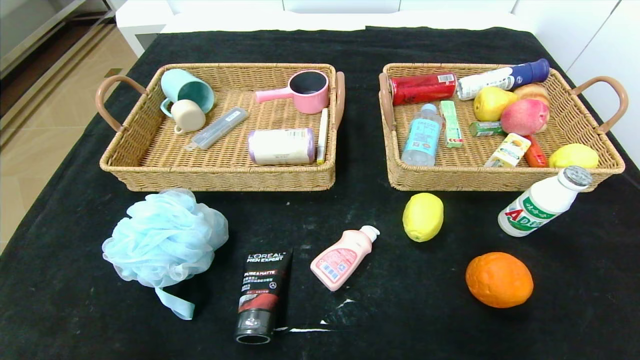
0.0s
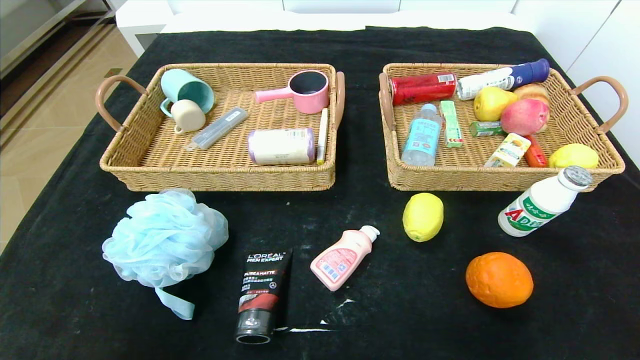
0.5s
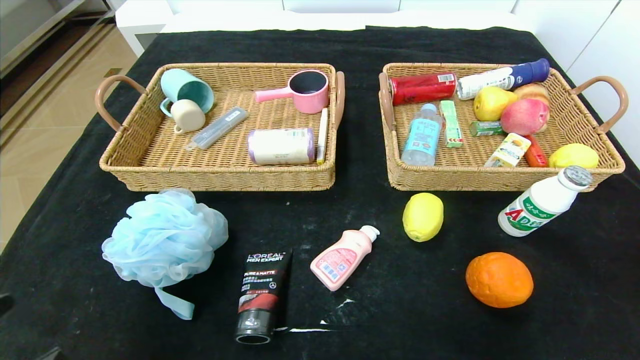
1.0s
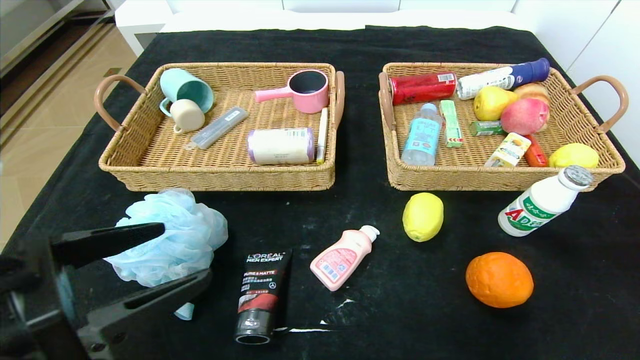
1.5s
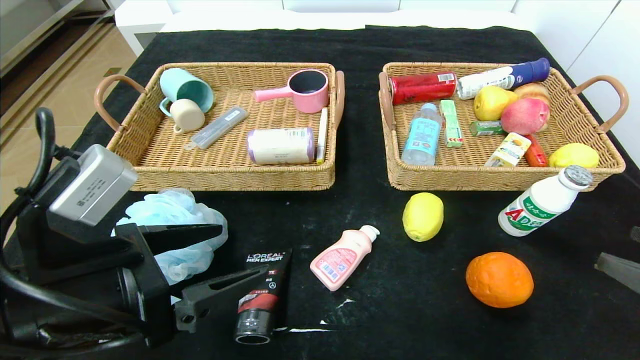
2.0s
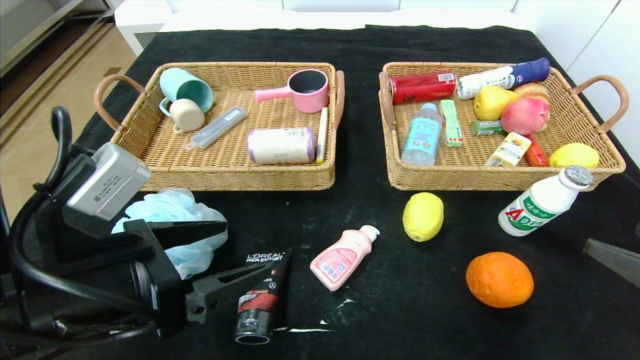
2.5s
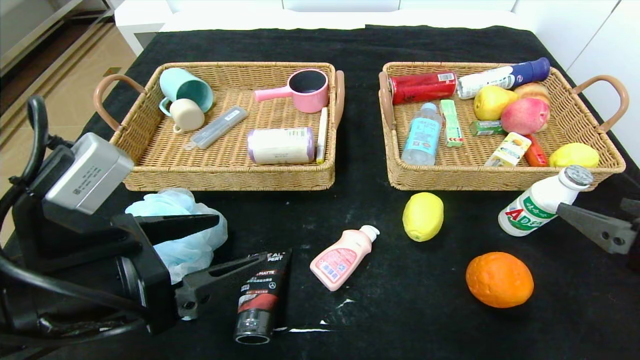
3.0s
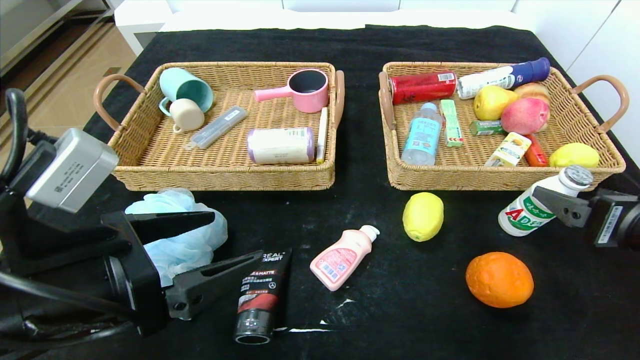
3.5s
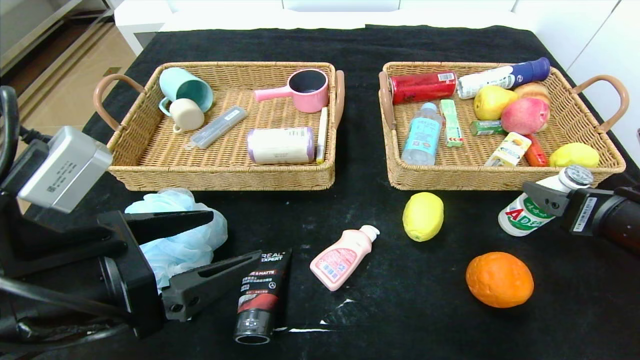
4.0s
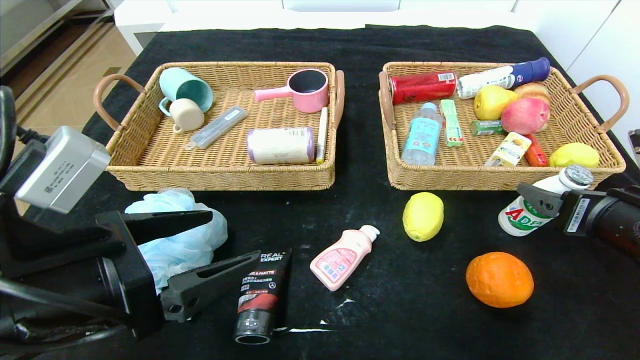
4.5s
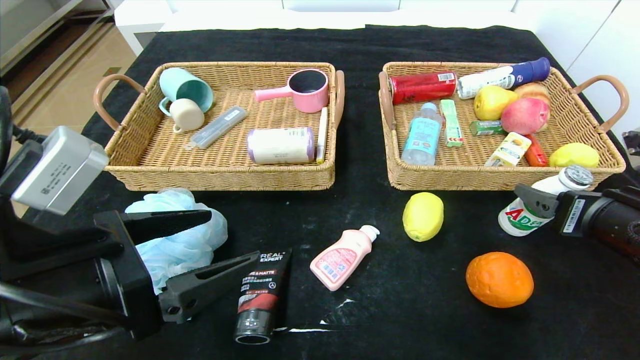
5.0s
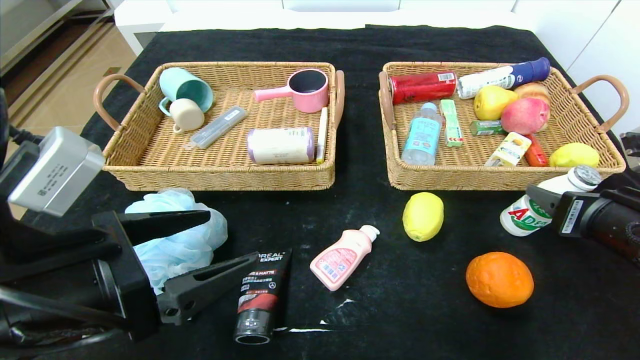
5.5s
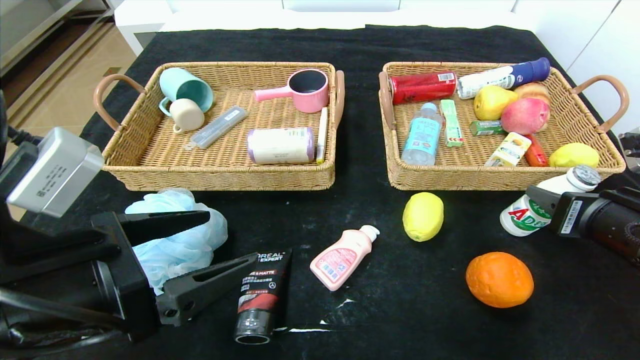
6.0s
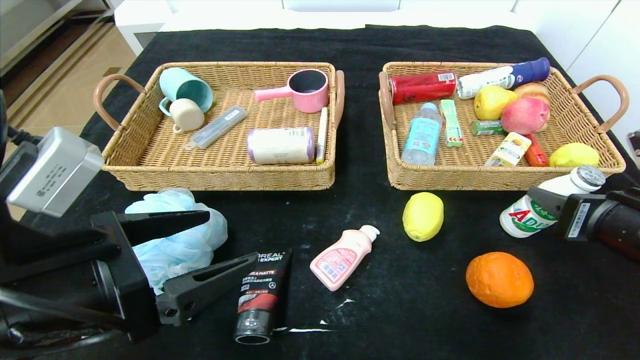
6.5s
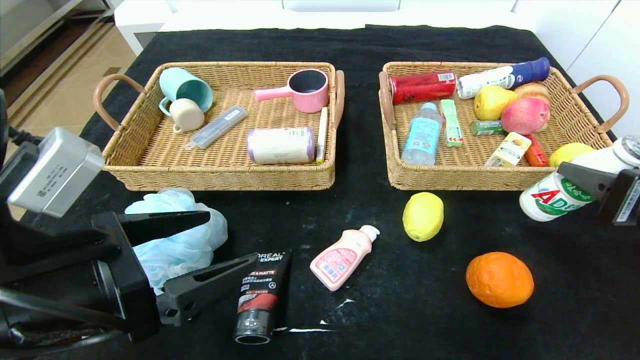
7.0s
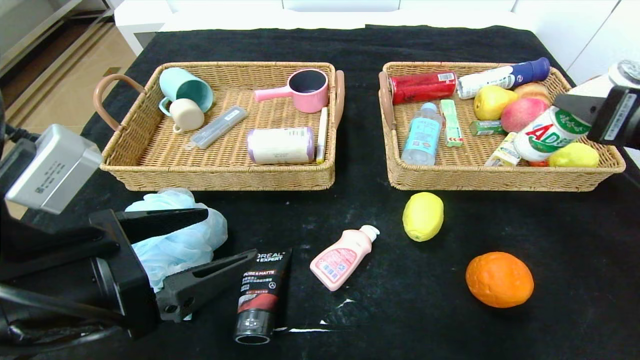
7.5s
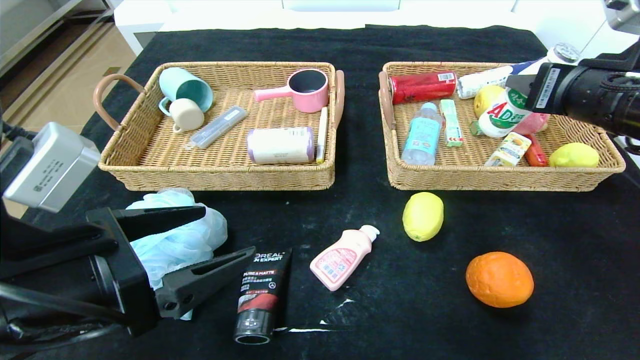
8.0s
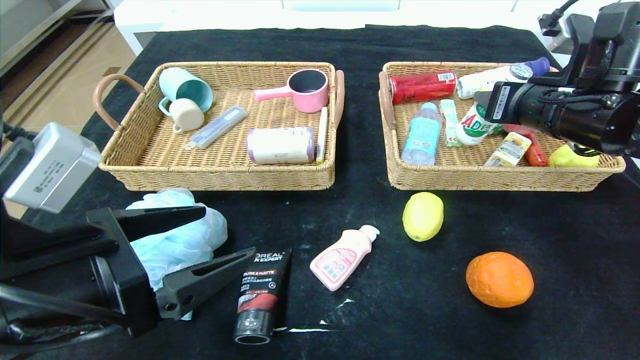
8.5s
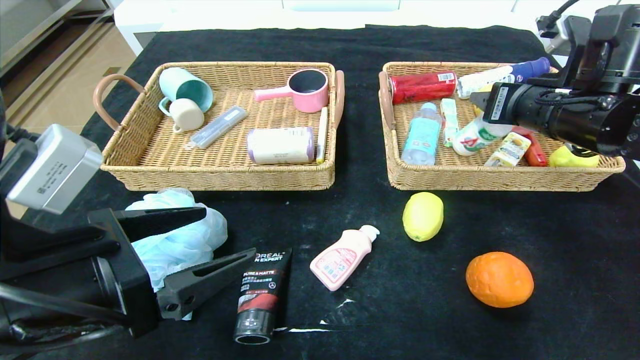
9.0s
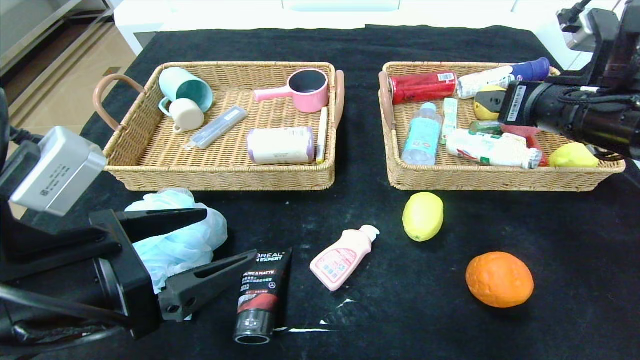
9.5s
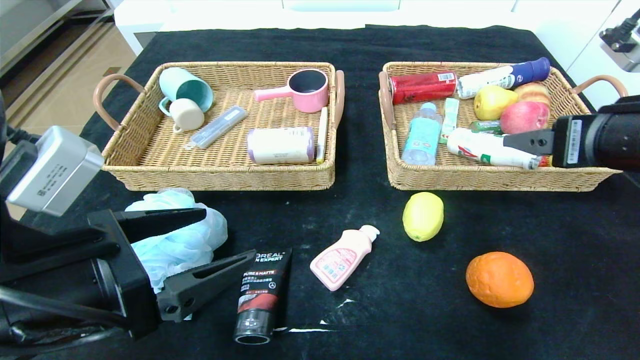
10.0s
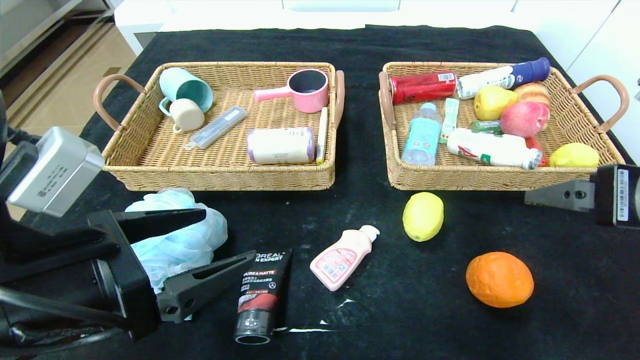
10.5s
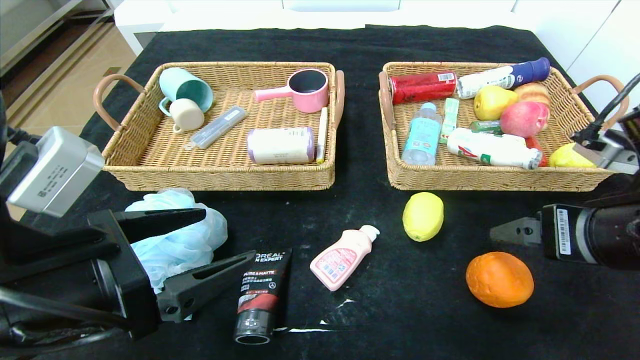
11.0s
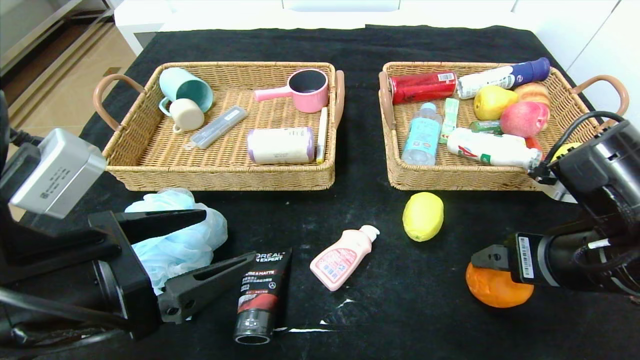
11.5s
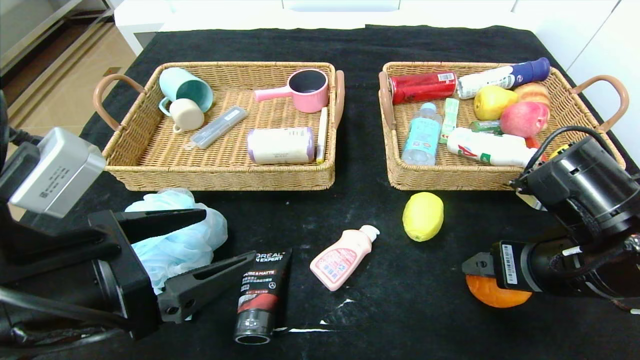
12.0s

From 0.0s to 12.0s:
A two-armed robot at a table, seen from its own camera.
Step, from 0.0s to 10.5s: Pick up the ad milk and put it in the right basket.
From 0.0s to 2.0s: The left gripper is displaced forward, upward and to the right by approximately 25 cm. The right gripper moves upward and forward, roughly 20 cm.
From 2.0s to 4.0s: The right gripper heads forward, covering about 10 cm.
From 4.0s to 6.0s: The right gripper closes its fingers.
From 6.0s to 8.0s: The right gripper moves upward and forward, approximately 15 cm.
From 8.0s to 10.0s: The right gripper travels backward by approximately 5 cm, and opens its fingers.
From 10.0s to 12.0s: The right gripper shifts approximately 10 cm downward.

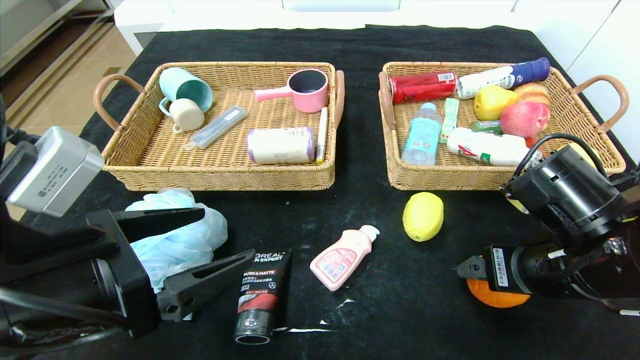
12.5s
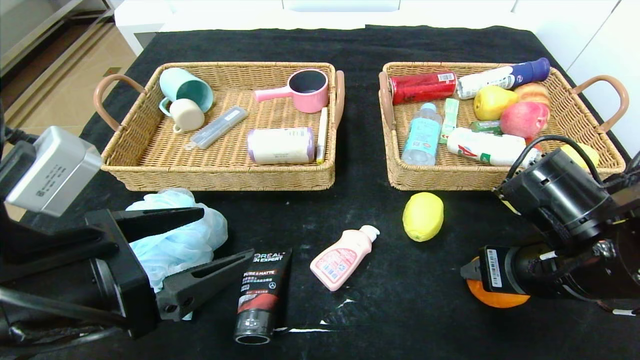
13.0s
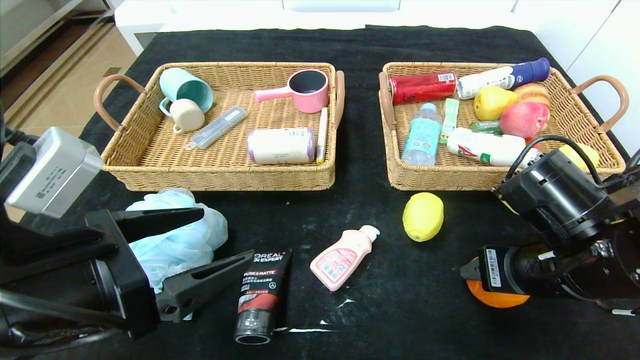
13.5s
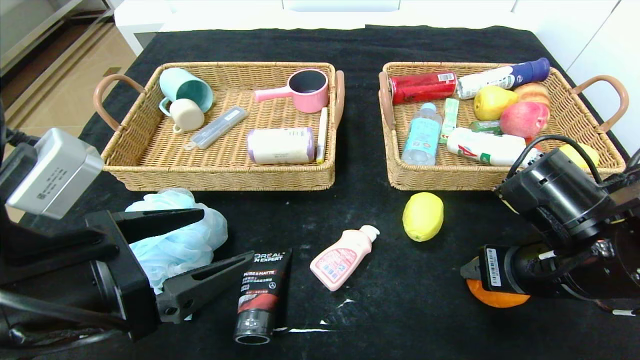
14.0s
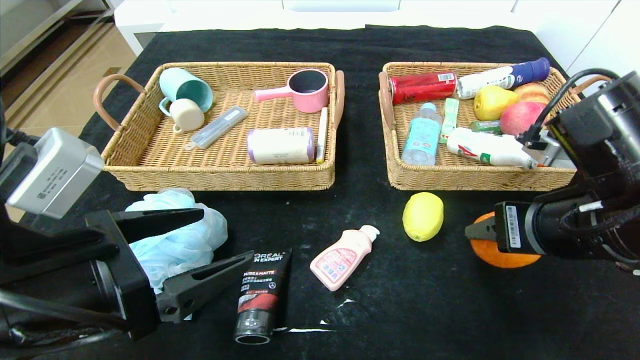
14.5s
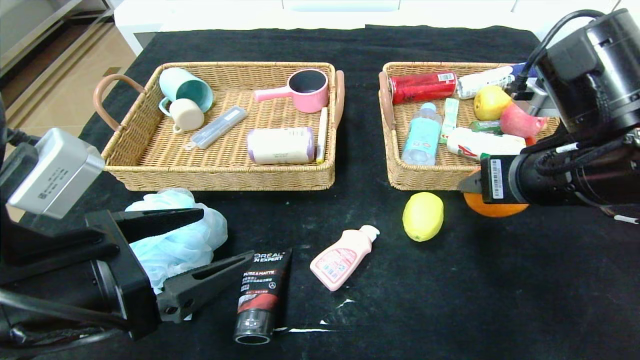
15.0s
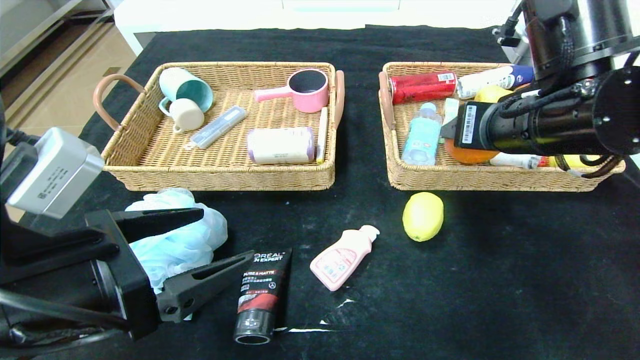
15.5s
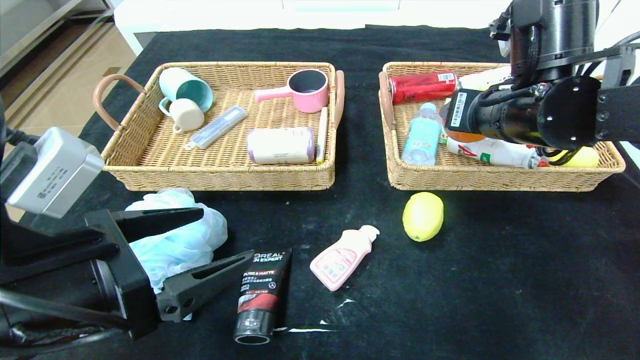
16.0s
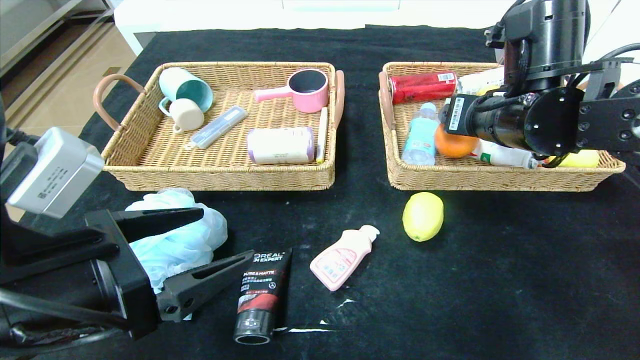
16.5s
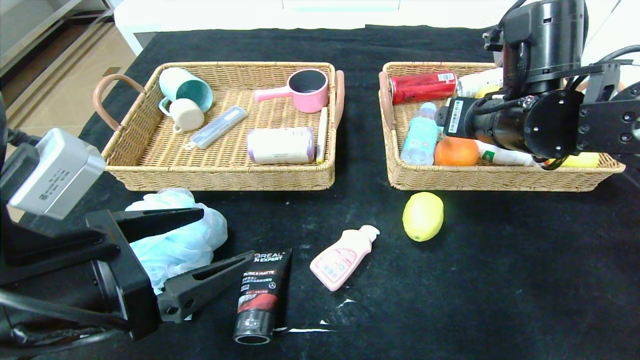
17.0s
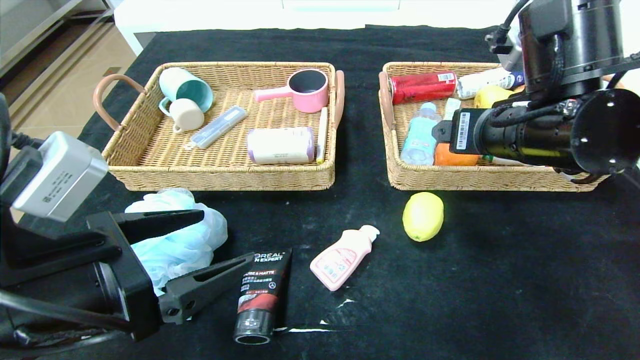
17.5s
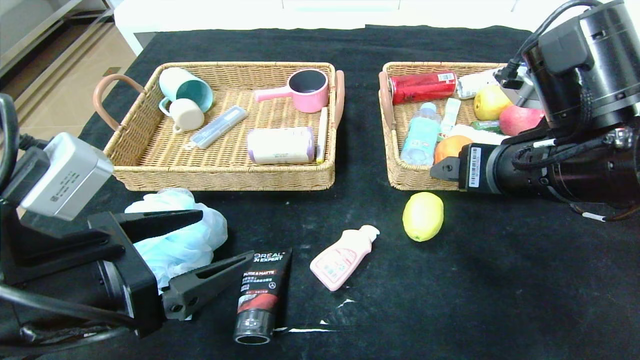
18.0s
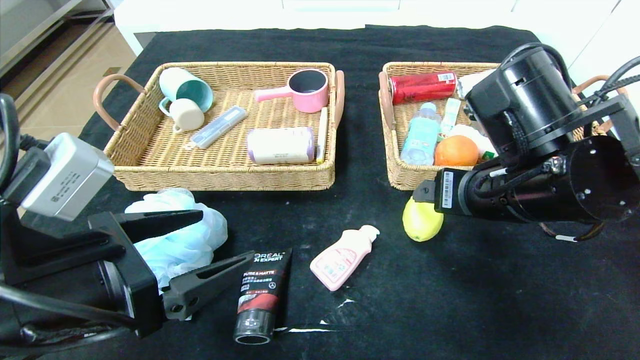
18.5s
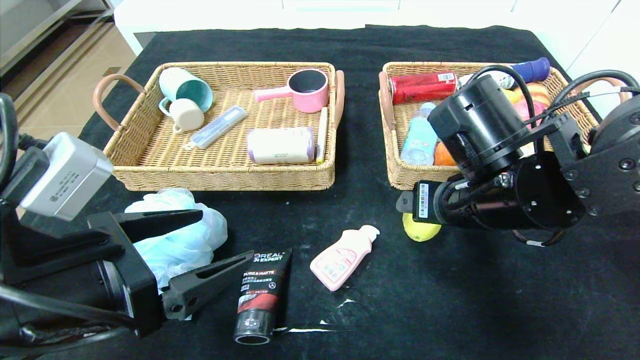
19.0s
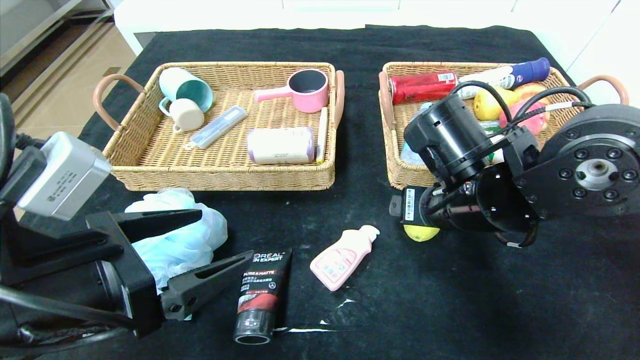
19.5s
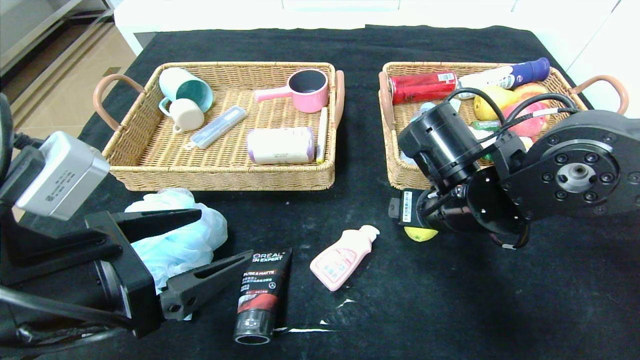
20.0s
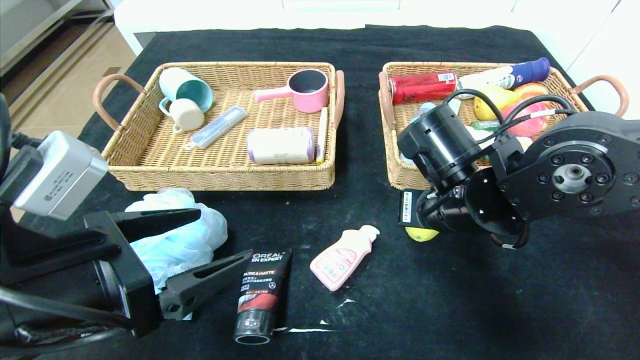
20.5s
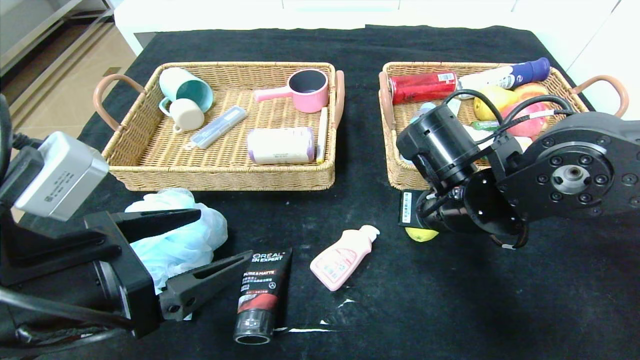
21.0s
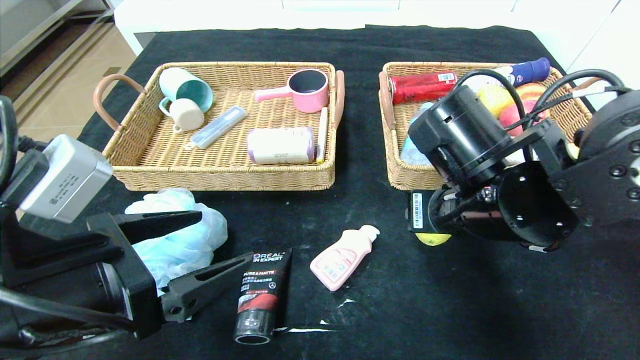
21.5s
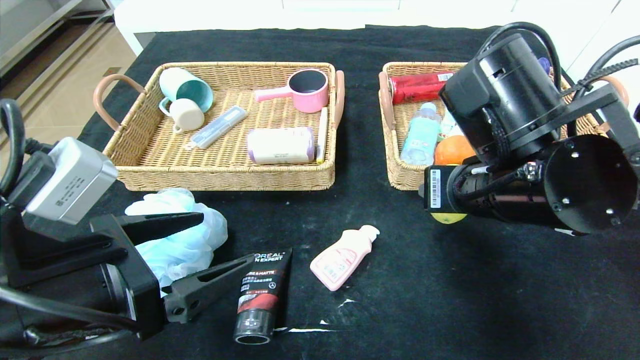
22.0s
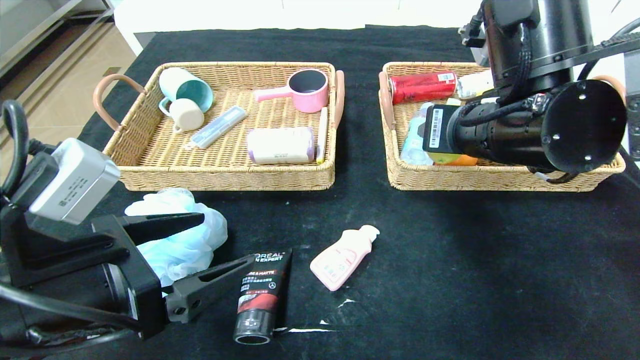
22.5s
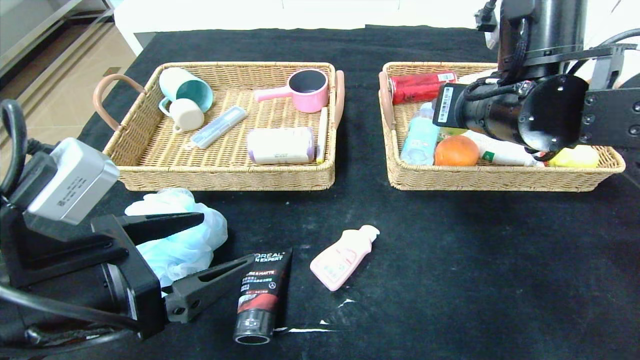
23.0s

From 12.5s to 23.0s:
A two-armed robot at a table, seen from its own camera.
Step, from 12.5s to 18.0s: Pick up the orange and put it in the right basket.
From 12.5s to 14.5s: The right gripper goes some 5 cm upward, and closes up.
From 14.5s to 16.5s: The right gripper is displaced forward by approximately 10 cm.
From 16.5s to 19.0s: The right gripper heads backward and downward, covering about 10 cm.
From 19.0s to 21.0s: The right gripper closes its fingers.
From 21.0s to 23.0s: The right gripper goes roughly 10 cm upward.
